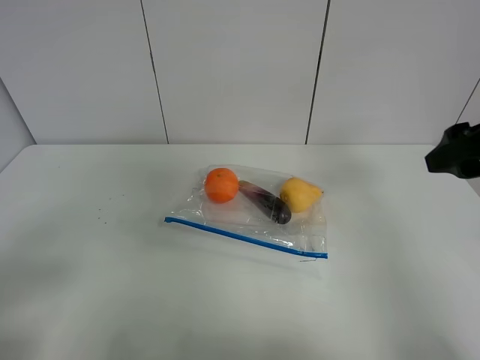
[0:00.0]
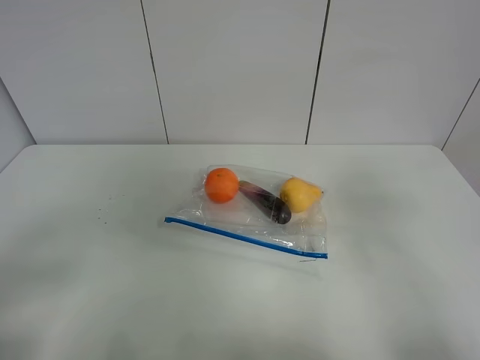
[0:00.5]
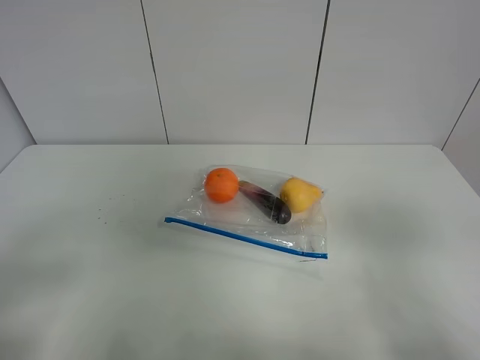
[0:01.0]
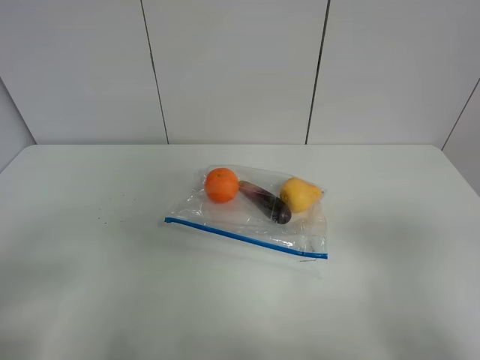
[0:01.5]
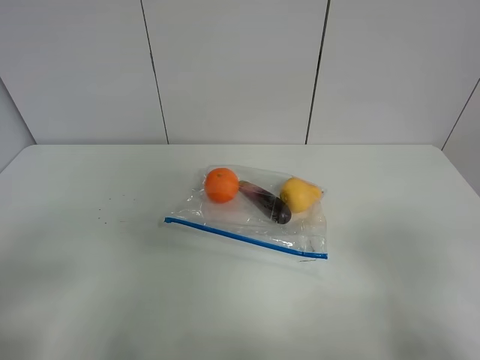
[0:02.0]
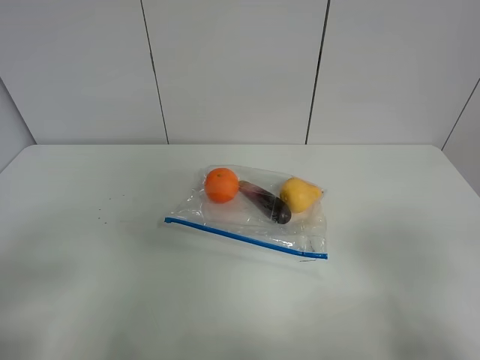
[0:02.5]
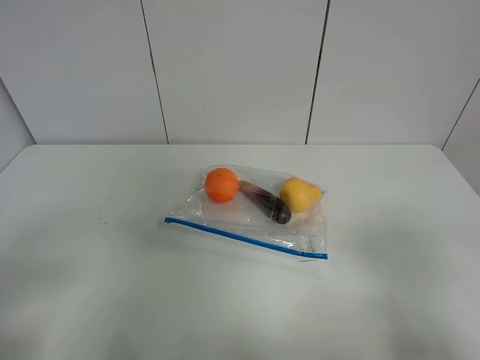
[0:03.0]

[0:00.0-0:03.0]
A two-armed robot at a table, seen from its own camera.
0:00.0 to 0:01.5: The right gripper heads backward, covering some 20 cm.

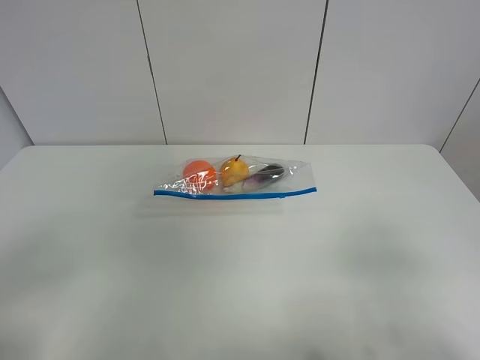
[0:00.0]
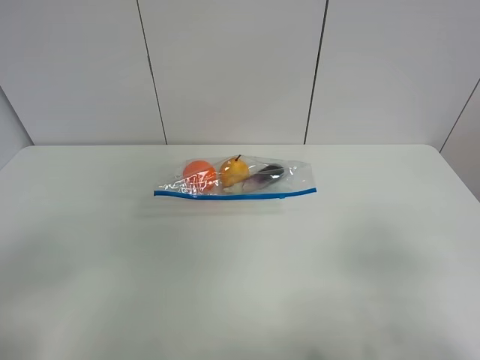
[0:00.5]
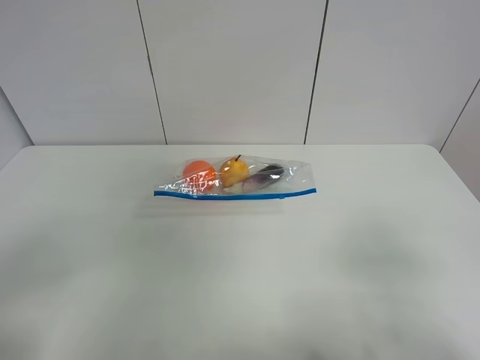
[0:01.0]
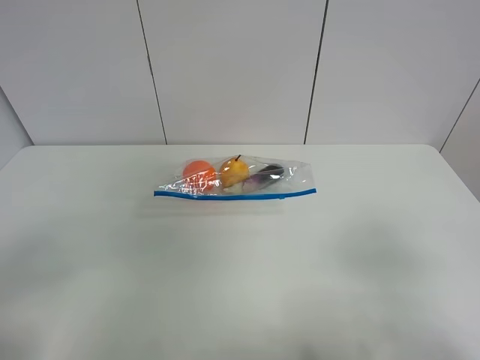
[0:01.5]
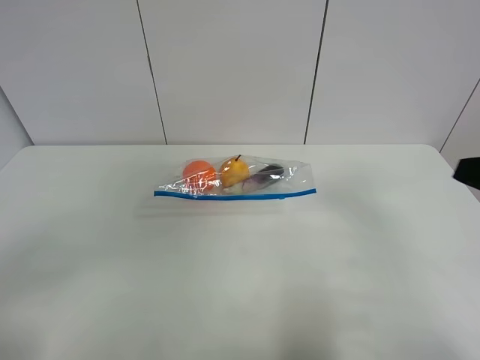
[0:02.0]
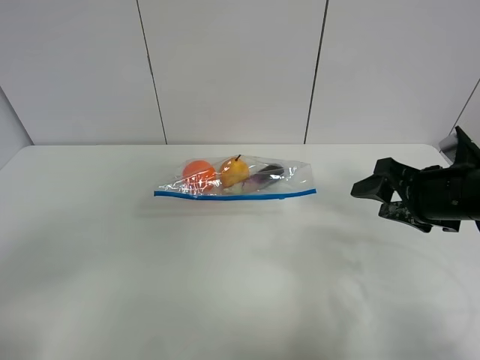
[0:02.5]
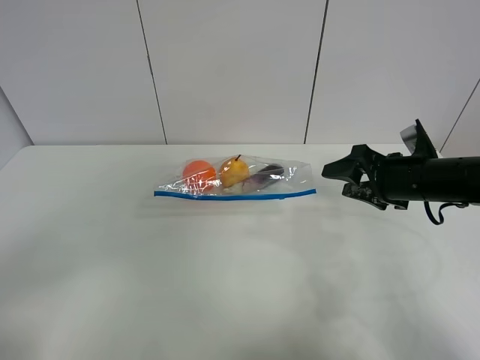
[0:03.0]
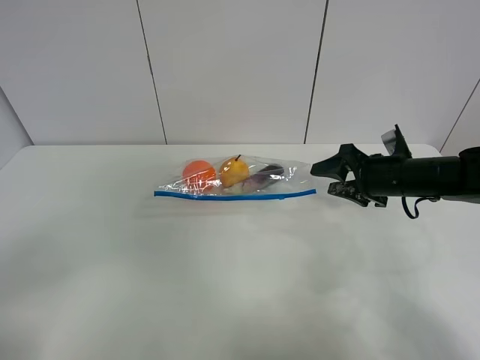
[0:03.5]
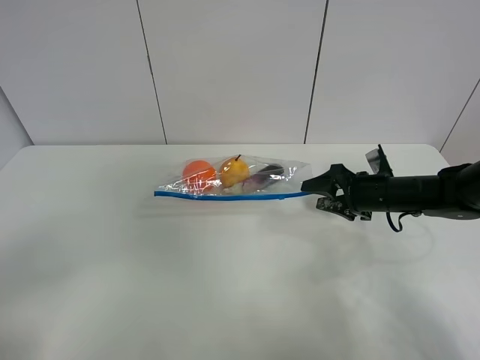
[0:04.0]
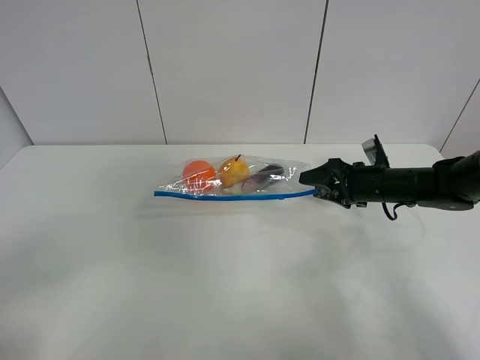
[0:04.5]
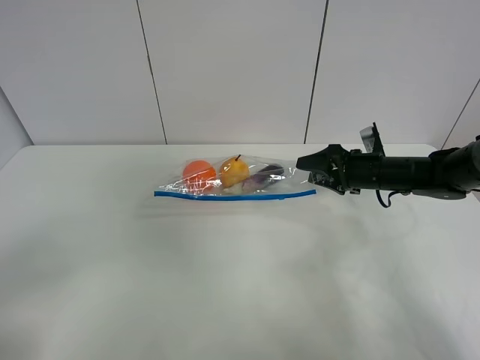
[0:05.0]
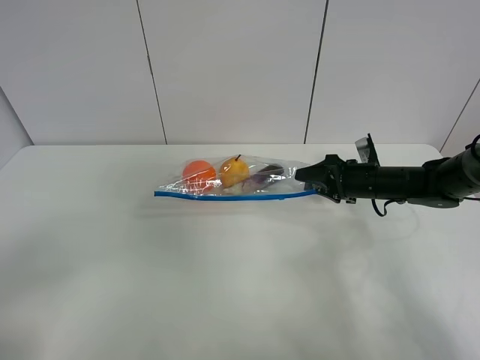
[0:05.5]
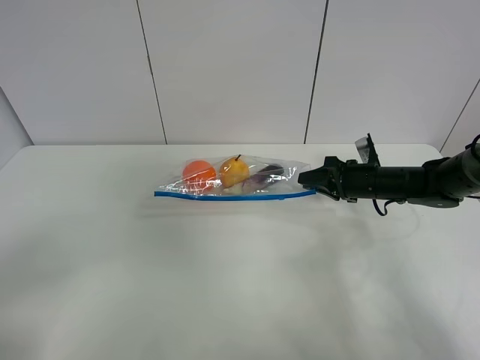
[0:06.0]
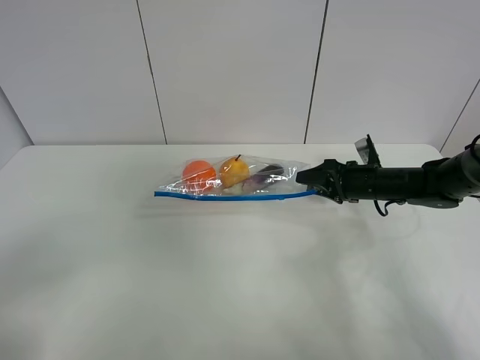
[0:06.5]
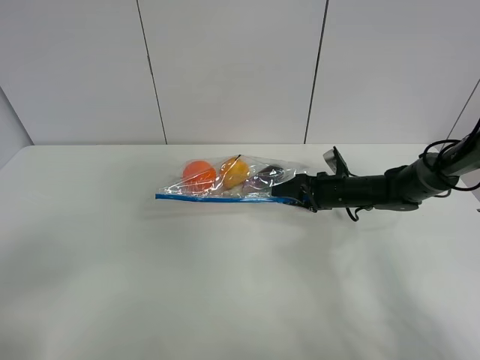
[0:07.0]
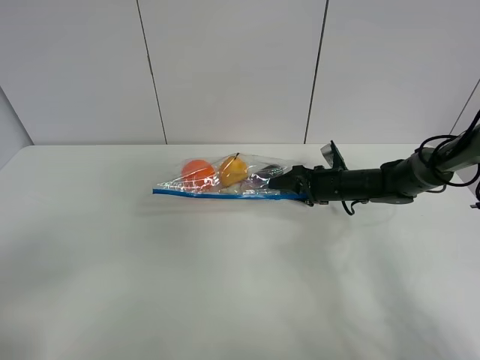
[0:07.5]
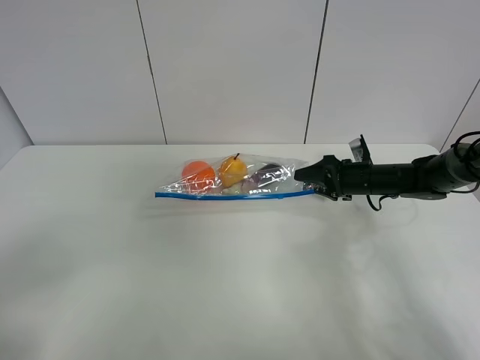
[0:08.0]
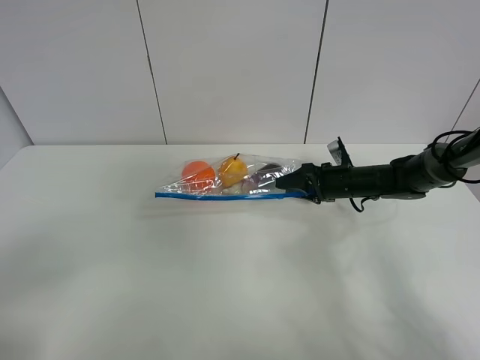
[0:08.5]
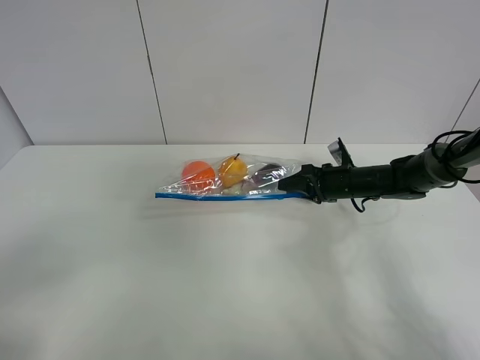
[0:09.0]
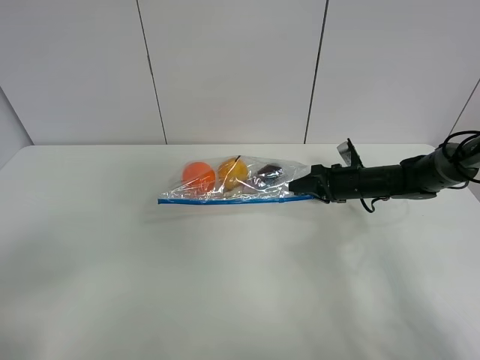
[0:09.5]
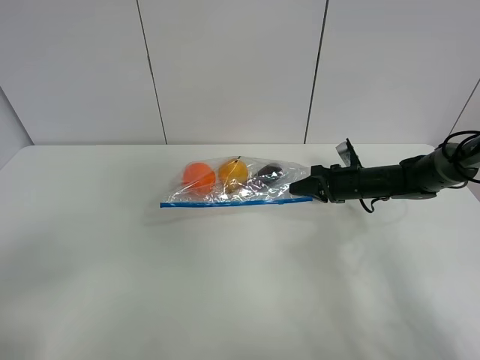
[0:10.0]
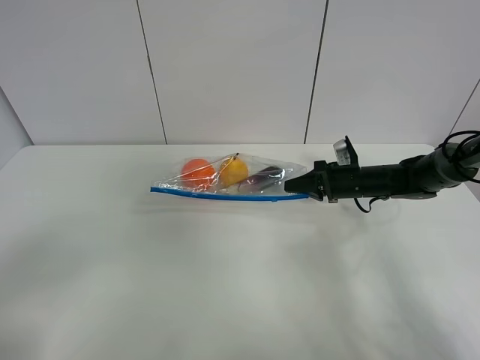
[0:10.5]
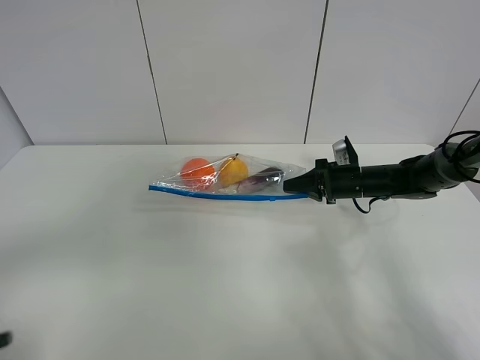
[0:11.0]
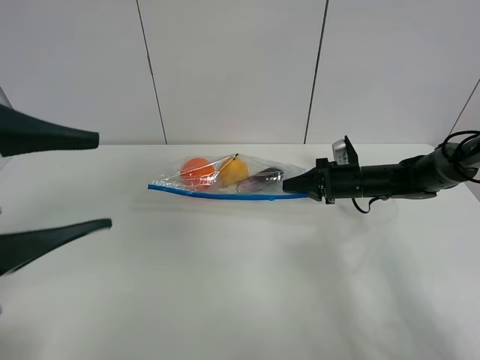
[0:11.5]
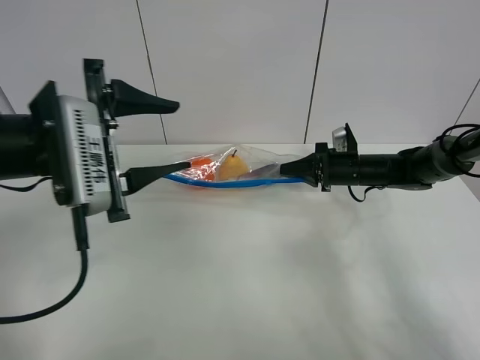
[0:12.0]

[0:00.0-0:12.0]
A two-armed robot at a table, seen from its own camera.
Step, 0:00.0 to 0:10.0: Grasp the fruit bag with right gripper.
0:00.0 to 0:02.0: The right gripper is displaced forward by some 10 cm.
0:02.0 to 0:04.0: The right gripper is displaced forward and downward by approximately 30 cm.
0:04.0 to 0:06.0: The right gripper closes.
0:06.0 to 0:08.0: The right gripper opens up.
0:08.0 to 0:10.0: The right gripper closes.
0:10.0 to 0:12.0: The left gripper shifts some 30 cm forward and to the right.

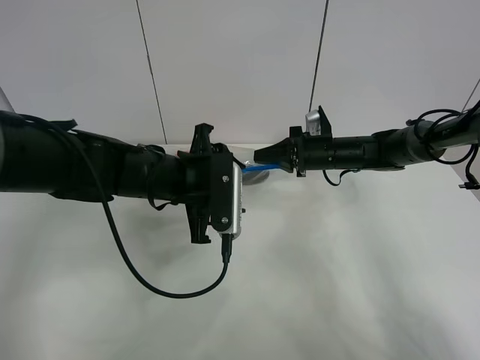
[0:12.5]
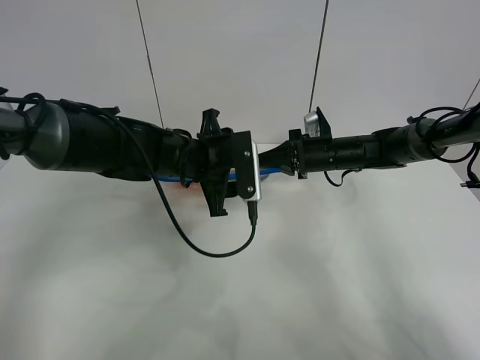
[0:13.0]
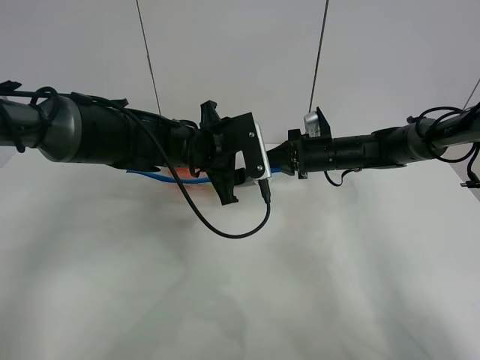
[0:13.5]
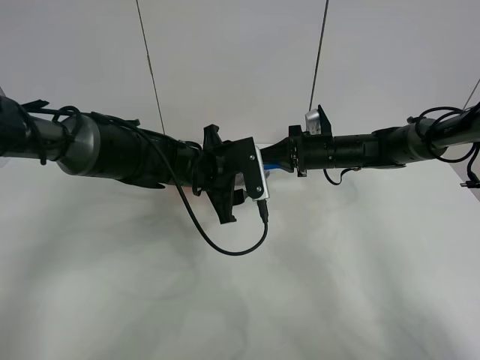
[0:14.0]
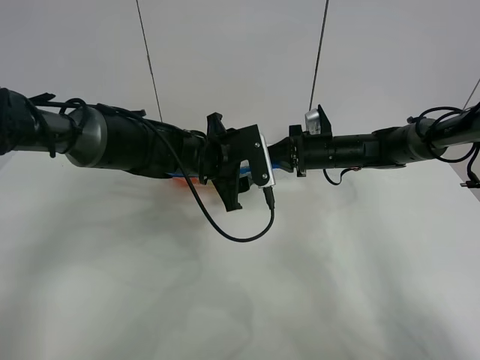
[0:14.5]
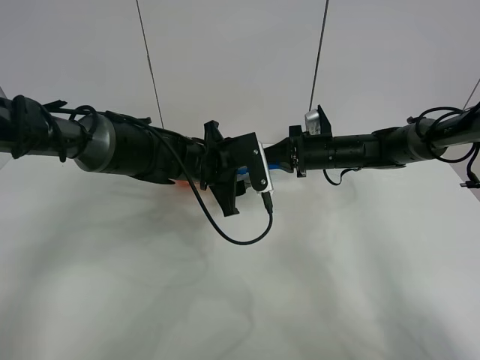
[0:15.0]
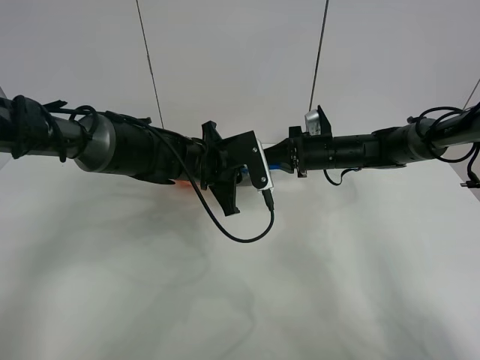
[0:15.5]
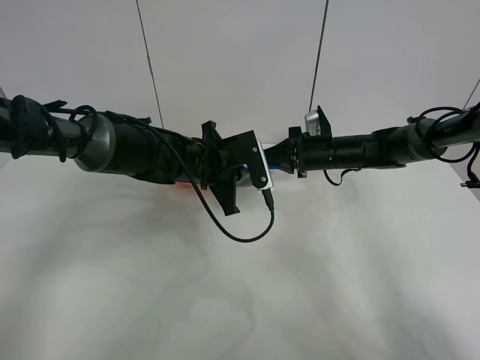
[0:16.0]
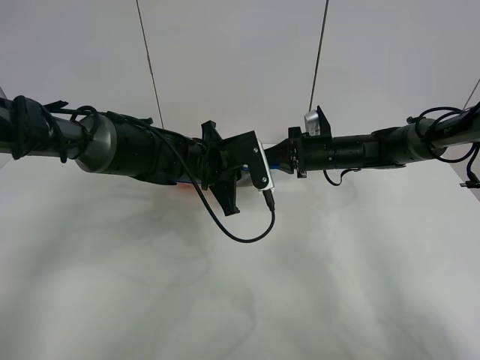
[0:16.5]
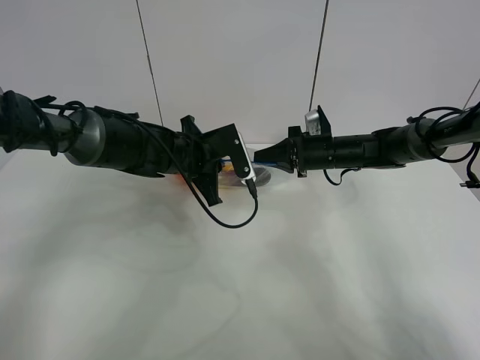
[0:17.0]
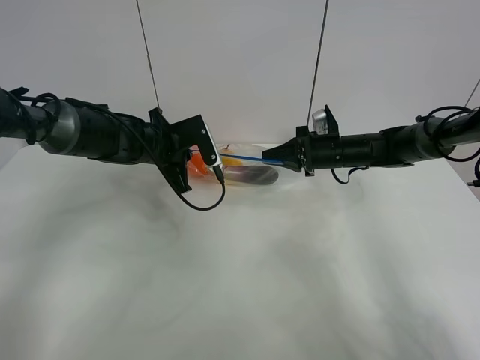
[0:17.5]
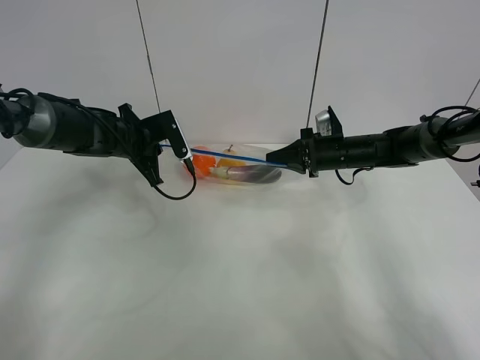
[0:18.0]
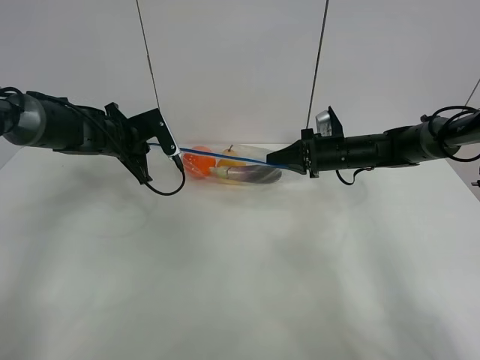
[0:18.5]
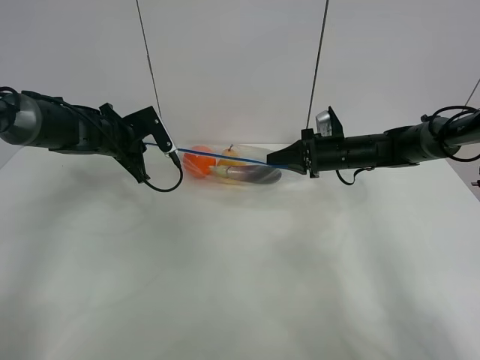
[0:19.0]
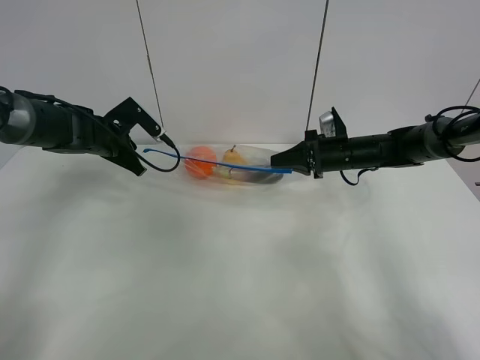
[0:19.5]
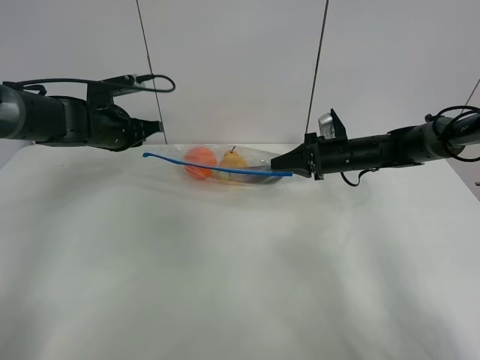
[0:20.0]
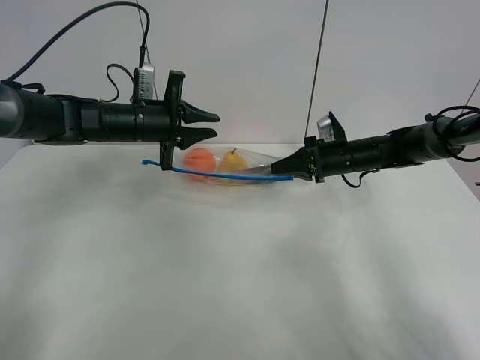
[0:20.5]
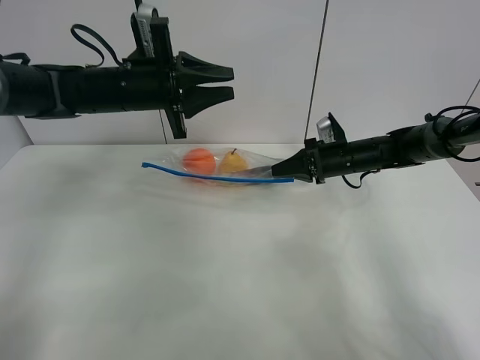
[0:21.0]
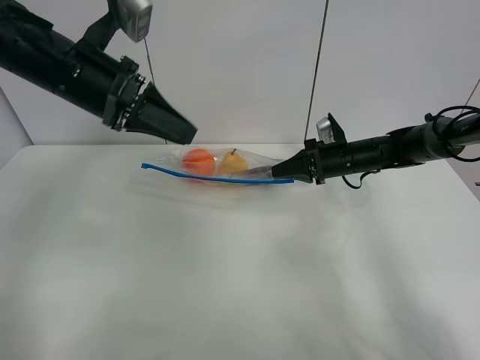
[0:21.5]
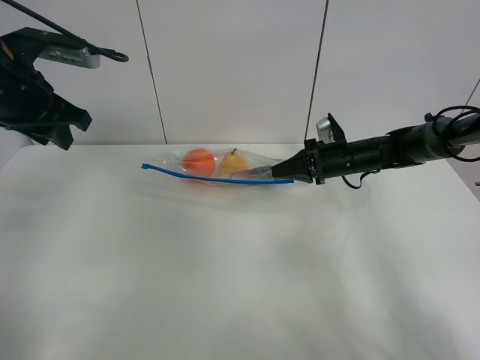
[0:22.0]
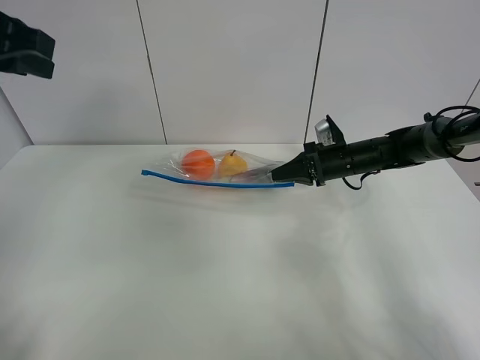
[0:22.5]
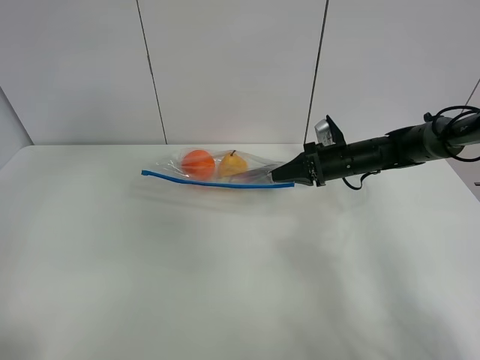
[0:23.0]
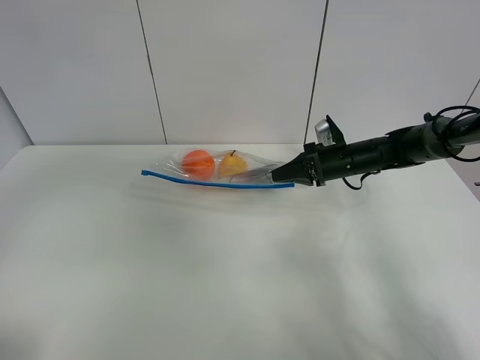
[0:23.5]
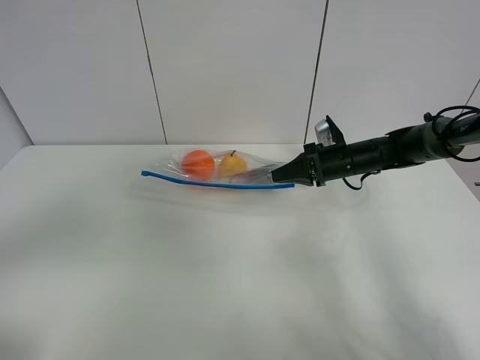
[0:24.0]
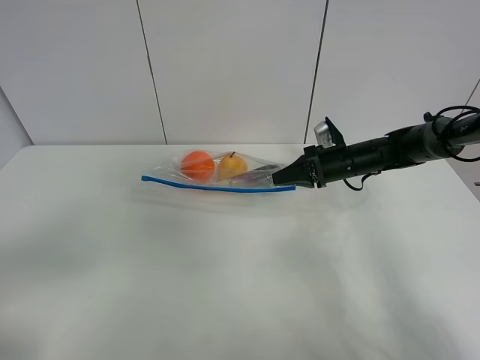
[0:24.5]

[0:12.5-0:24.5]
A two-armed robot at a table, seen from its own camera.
Step, 0:12.5 to 0:20.0: Pull the fruit bag with left gripper.
0:12.5 to 0:14.5: The left gripper heads forward, covering approximately 5 cm.
0:14.5 to 0:16.5: The left gripper closes up.
0:16.5 to 0:18.5: The left gripper heads to the left, covering roughly 15 cm.
0:18.5 to 0:20.5: The left gripper moves to the right, about 5 cm, and opens up.
0:20.5 to 0:22.5: The left gripper shifts approximately 25 cm upward, backward and to the left.
0:22.5 to 0:24.5: The left gripper travels backward and downward by approximately 30 cm.
